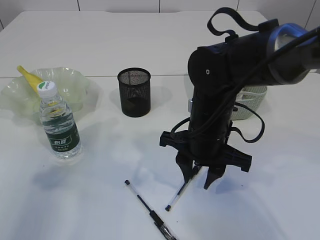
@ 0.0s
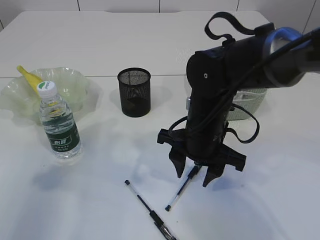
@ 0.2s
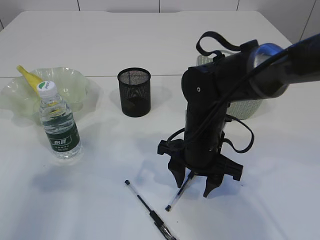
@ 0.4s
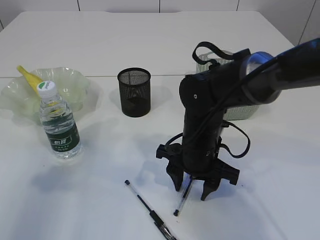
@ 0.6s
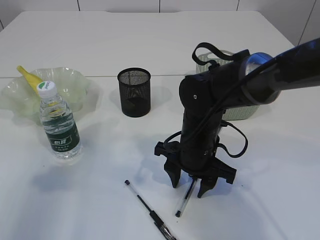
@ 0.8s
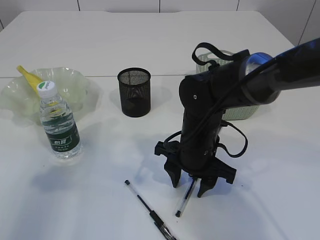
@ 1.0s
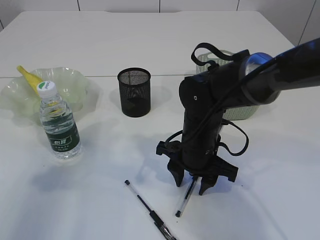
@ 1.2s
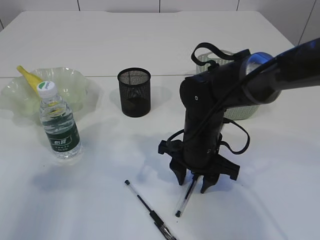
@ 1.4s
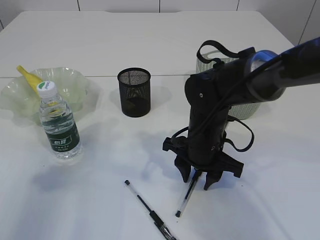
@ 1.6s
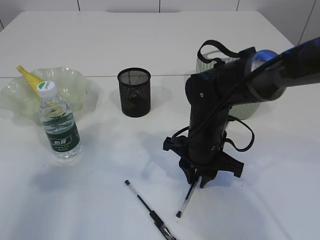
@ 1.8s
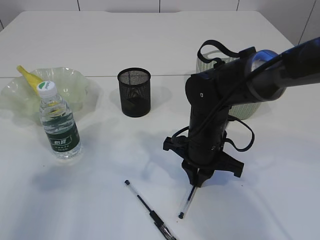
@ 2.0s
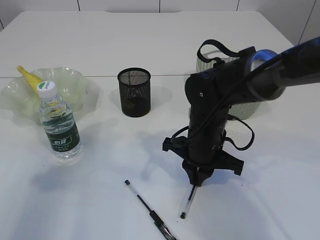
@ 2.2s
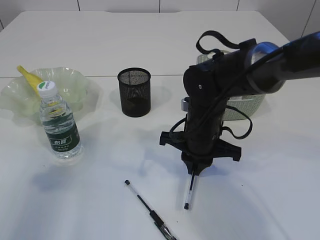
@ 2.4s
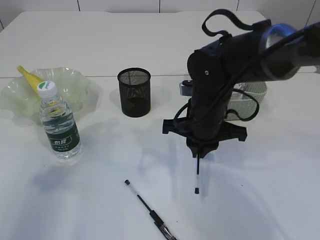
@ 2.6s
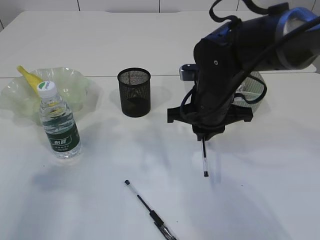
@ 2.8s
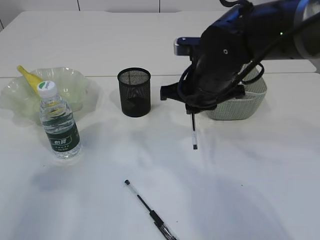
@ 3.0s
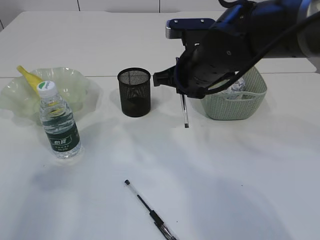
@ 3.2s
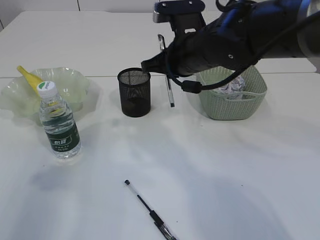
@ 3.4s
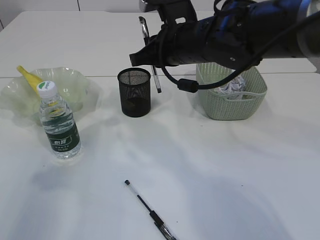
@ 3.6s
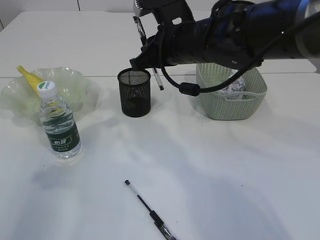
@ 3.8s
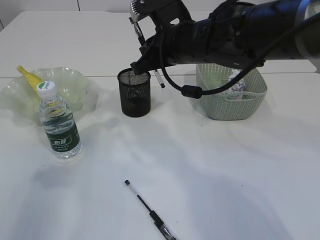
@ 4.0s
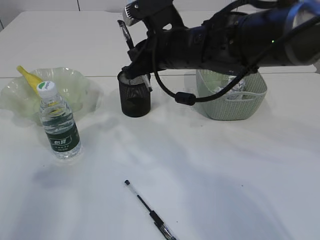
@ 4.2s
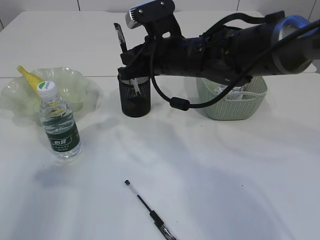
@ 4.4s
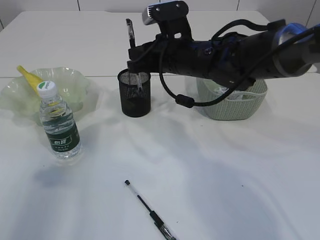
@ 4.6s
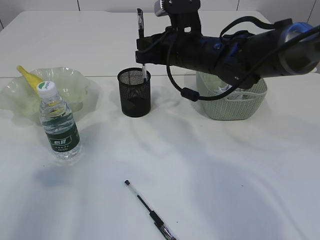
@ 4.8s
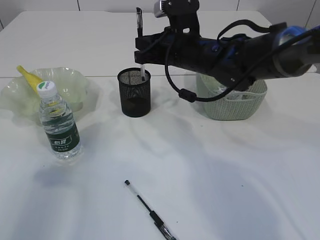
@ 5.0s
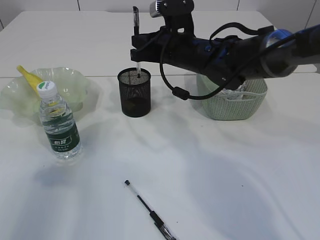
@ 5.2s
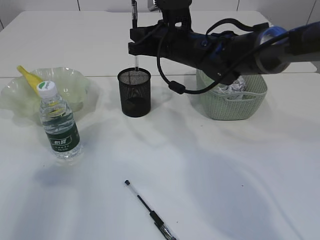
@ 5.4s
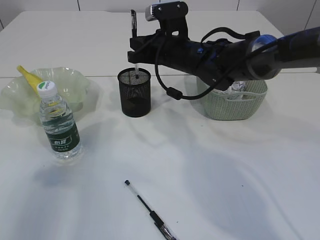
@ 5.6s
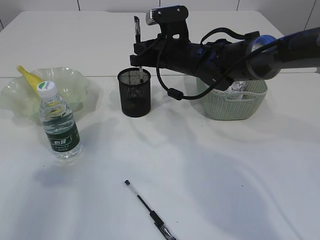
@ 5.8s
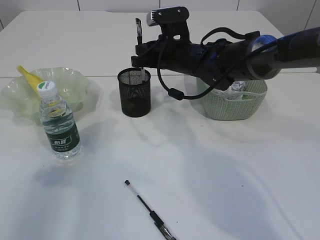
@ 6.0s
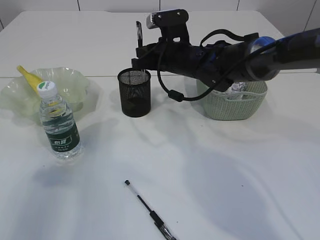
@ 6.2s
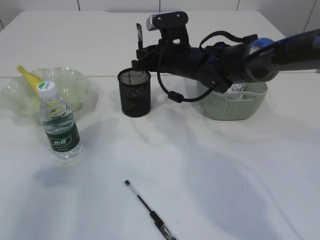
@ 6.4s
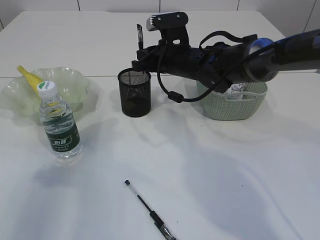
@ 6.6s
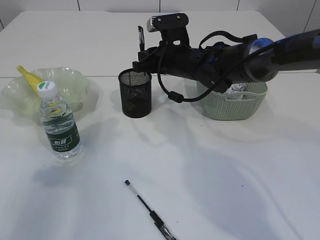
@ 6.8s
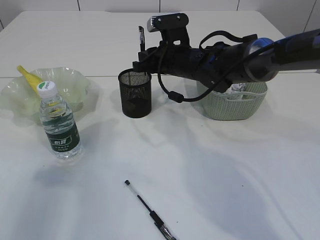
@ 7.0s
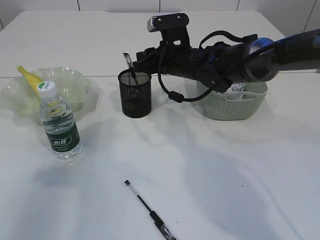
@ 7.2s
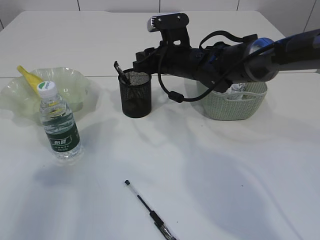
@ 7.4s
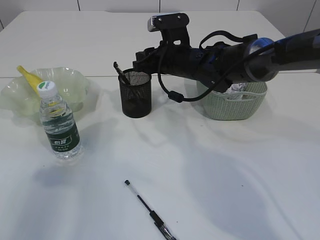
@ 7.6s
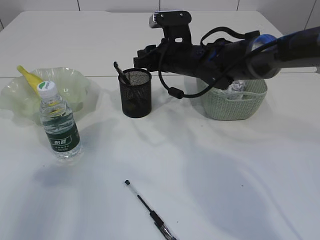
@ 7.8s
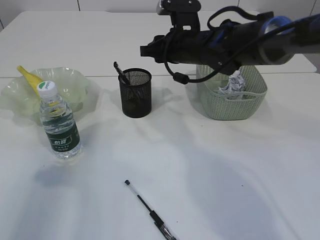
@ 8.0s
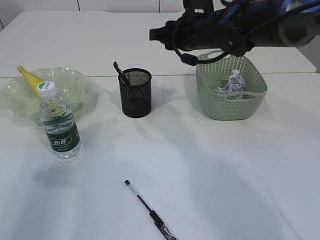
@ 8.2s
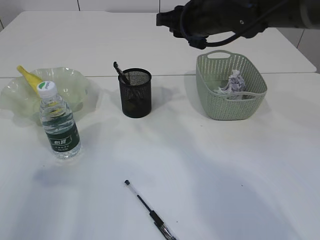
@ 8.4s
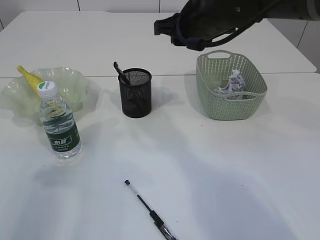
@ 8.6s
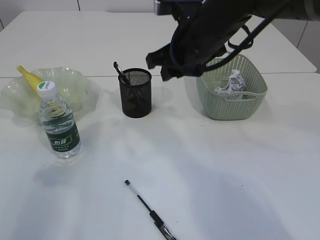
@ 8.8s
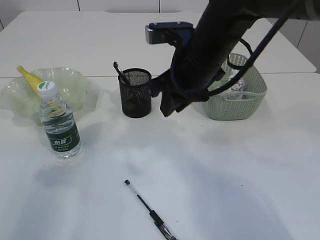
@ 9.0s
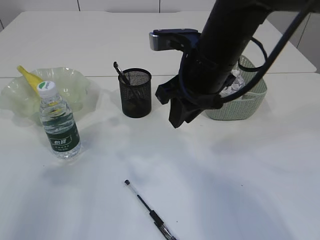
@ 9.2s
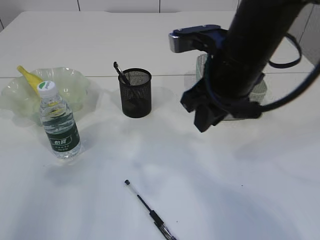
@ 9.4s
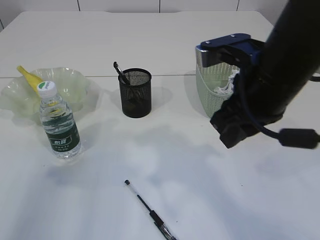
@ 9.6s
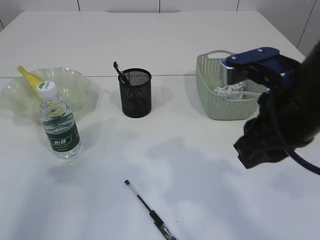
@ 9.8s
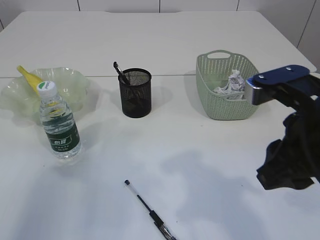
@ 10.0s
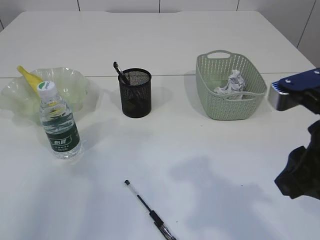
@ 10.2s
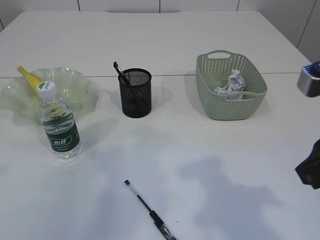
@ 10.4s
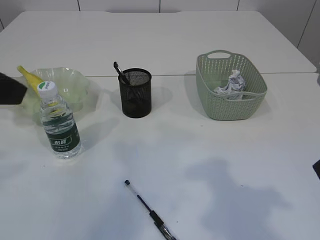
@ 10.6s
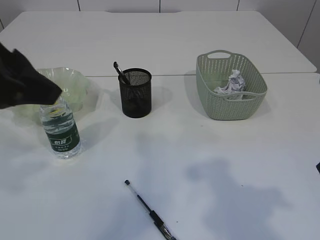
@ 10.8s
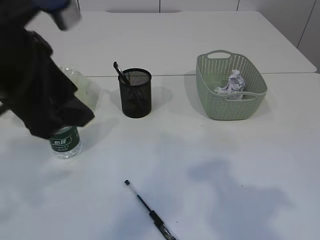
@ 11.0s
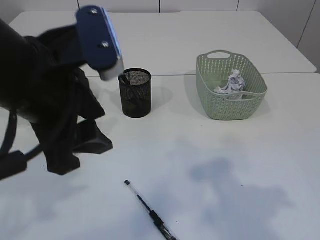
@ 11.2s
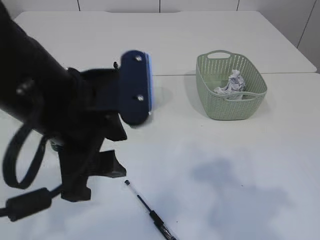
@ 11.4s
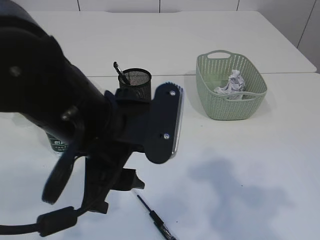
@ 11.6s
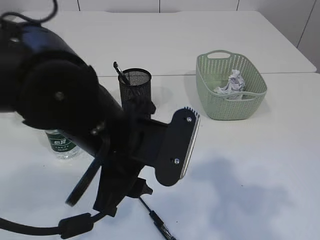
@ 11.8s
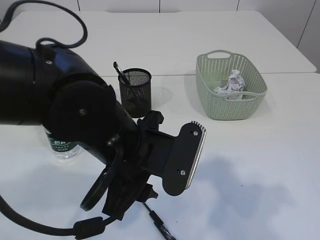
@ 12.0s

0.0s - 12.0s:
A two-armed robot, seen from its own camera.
Step, 0.0s - 2.6s: Pick up the pen with right arm.
Step, 2.8s - 7.8s: Place the pen into the pen holder.
0.0s - 1.6s: The right gripper changes place by approximately 5 cm.
1.6s - 3.0s: The right gripper shifts approximately 10 cm upward, and closes.
3.0s - 4.4s: The right gripper shifts by some 5 cm.
4.4s - 6.0s: The right gripper is displaced forward by some 5 cm.
6.0s - 7.6s: The right gripper opens up.
7.6s - 9.0s: The right gripper shifts about 15 cm backward and upward.
9.0s - 10.4s: The left gripper ends up about 5 cm from where it was. Meanwhile the right gripper heads backward and to the right, covering roughly 25 cm.
10.4s - 12.0s: The left gripper heads to the right and downward, covering approximately 25 cm.

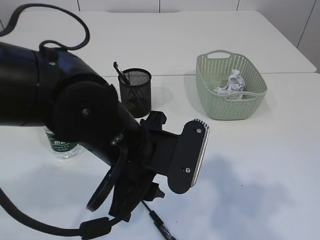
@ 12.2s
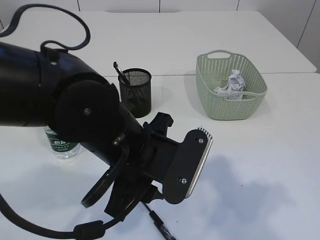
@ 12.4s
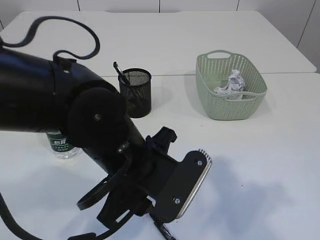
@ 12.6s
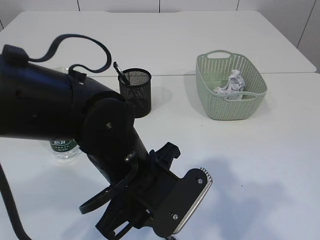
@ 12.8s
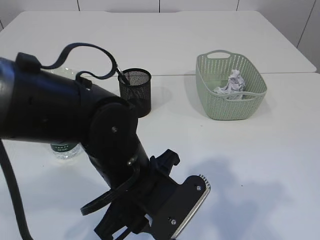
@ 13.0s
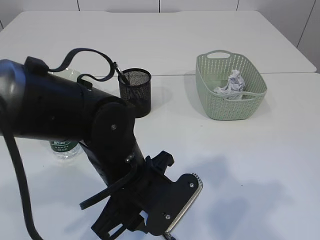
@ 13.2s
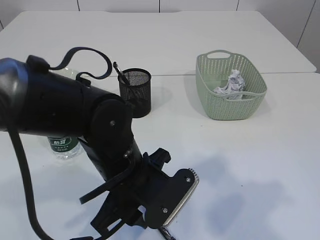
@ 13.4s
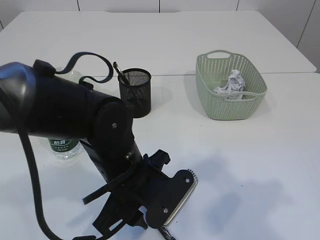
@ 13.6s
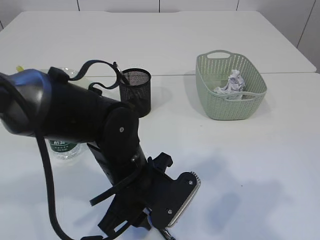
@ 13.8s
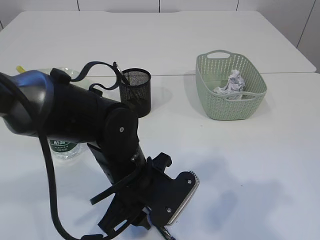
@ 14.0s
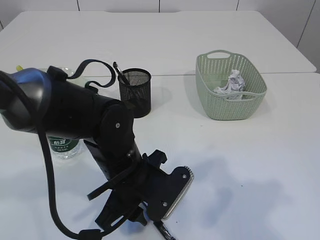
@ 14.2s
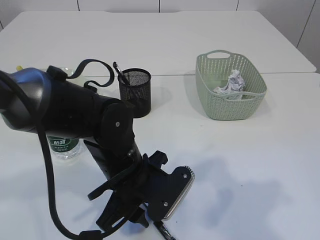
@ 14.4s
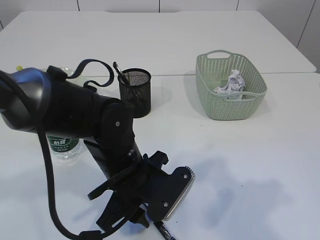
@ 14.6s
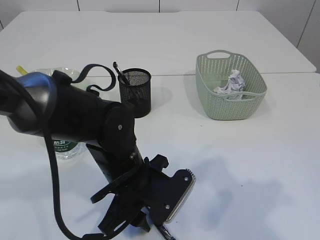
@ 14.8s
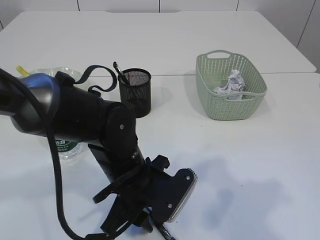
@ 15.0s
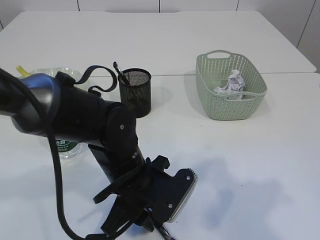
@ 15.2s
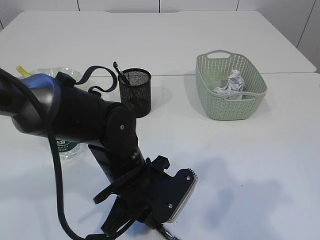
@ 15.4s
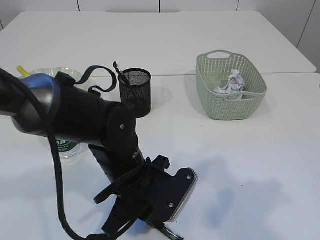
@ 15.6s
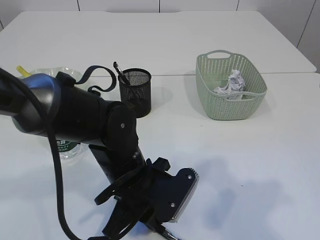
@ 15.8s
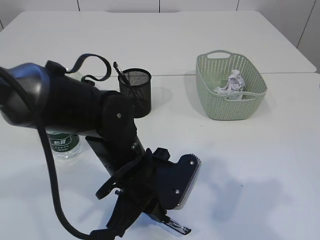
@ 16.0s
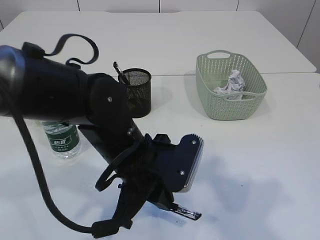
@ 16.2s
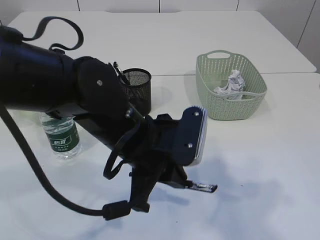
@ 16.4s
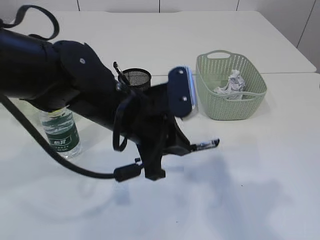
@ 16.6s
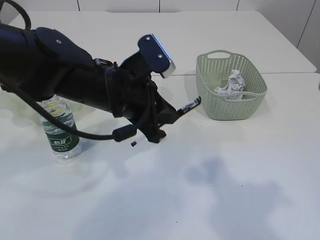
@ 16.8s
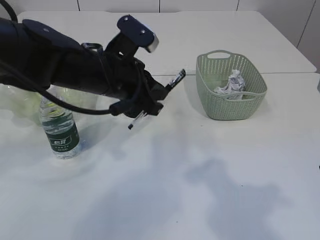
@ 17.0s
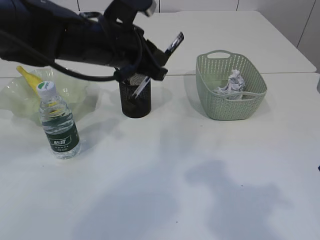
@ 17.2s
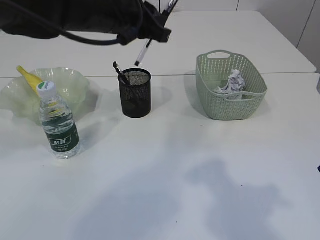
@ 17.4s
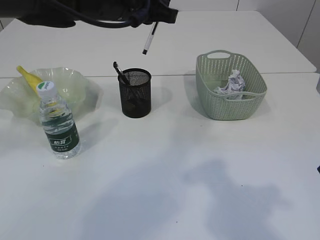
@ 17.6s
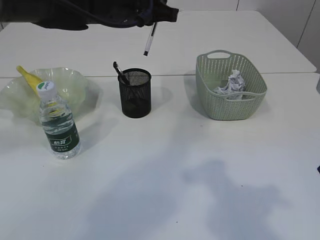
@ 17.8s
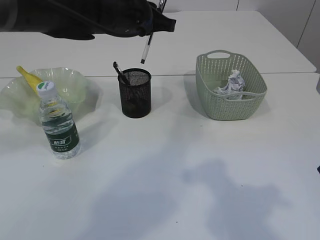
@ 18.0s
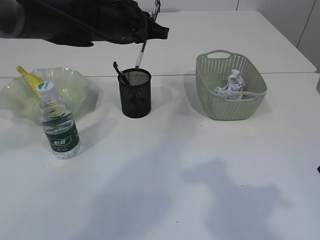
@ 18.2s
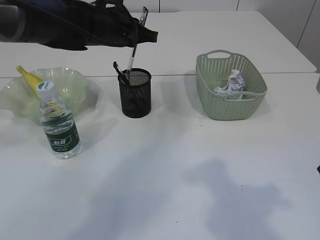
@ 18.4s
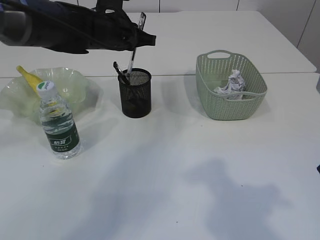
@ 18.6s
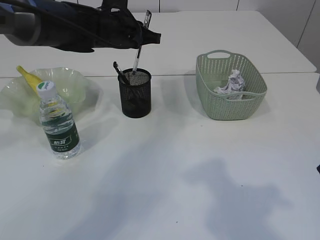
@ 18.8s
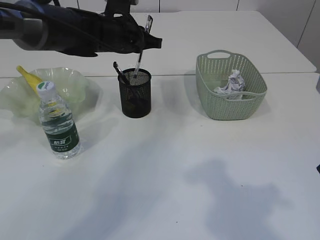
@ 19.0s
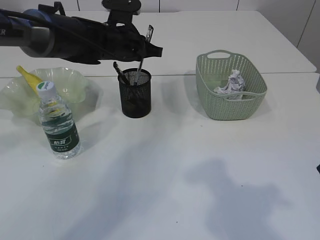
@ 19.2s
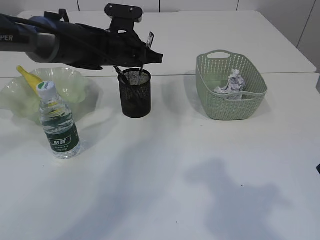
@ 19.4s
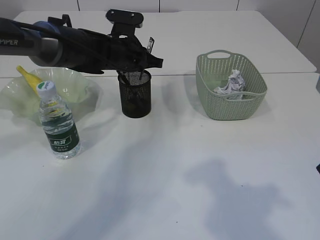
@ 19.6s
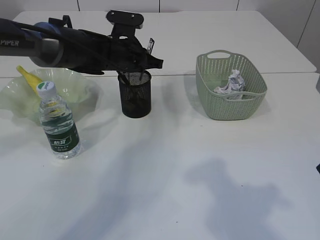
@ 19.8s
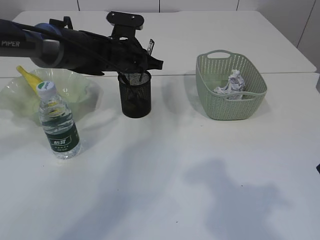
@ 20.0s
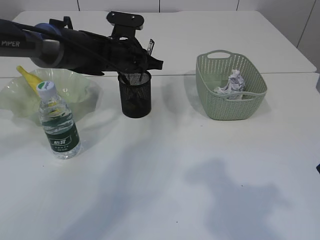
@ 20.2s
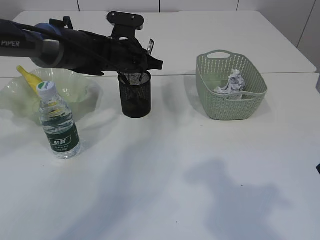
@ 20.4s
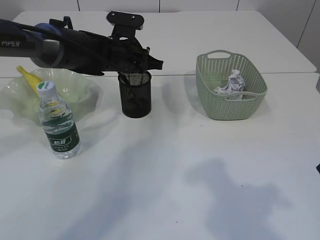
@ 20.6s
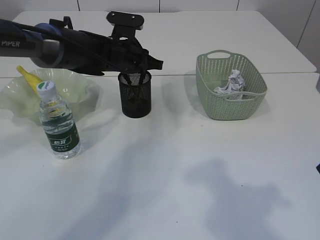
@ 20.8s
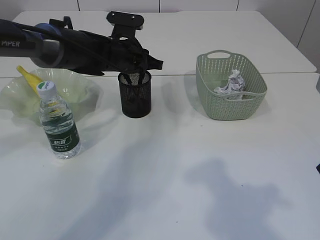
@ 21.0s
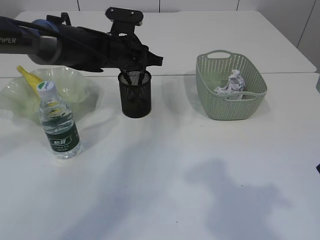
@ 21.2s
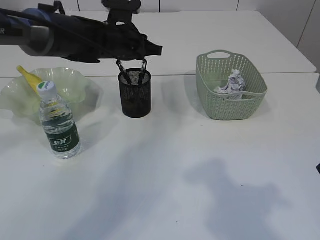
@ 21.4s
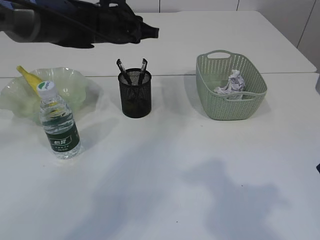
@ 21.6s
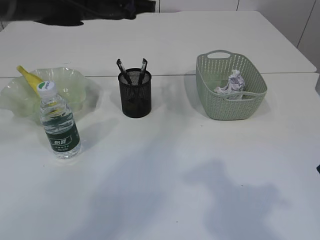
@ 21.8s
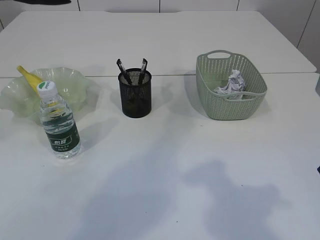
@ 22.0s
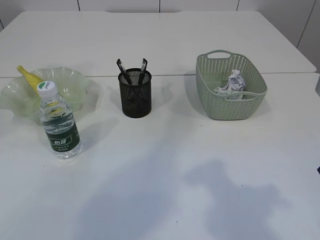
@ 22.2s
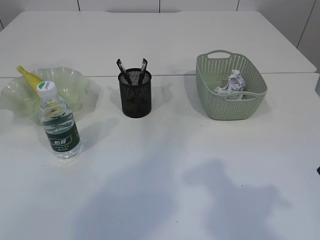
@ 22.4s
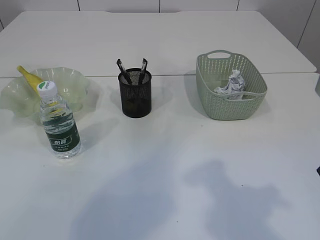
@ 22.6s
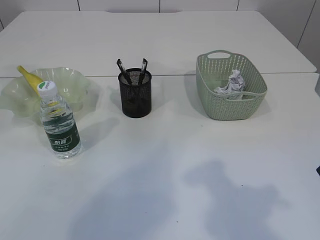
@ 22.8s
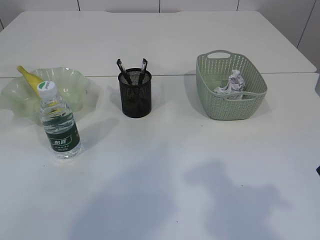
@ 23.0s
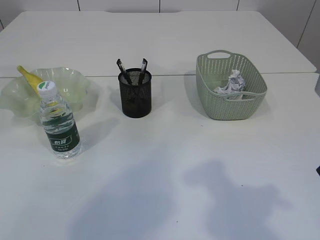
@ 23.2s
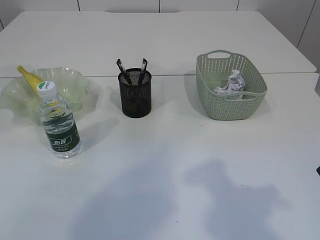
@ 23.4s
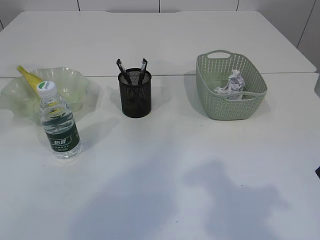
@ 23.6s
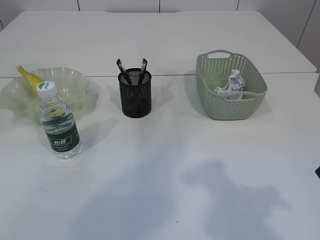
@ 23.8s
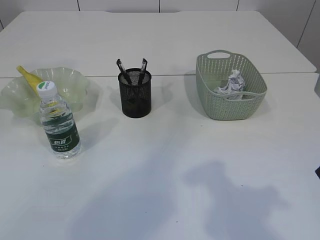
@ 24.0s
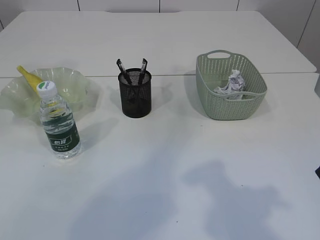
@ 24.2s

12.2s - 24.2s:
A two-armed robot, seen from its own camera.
Step, 12.2s - 16.4s: Pick up the pen with left arm.
Step, 16.6s - 21.6s: Place the pen into the pen holder.
12.2s - 13.8s: The left gripper heads downward, covering approximately 10 cm.
13.8s - 15.2s: The grippers move only a little.
15.2s - 16.6s: The left gripper moves upward, about 10 cm, and closes up.
16.6s - 18.2s: The left gripper shifts roughly 15 cm forward and upward.
18.2s - 19.8s: The left gripper shifts roughly 10 cm downward.
19.8s - 21.2s: Neither gripper changes place.
21.2s - 22.6s: The left gripper goes about 20 cm upward and to the left.
